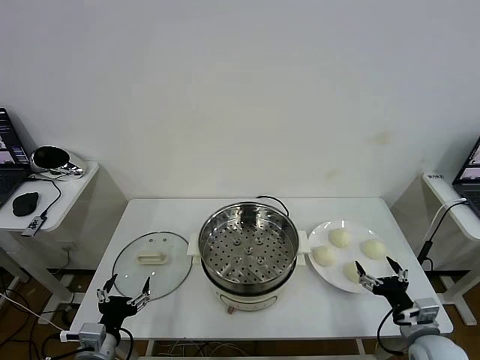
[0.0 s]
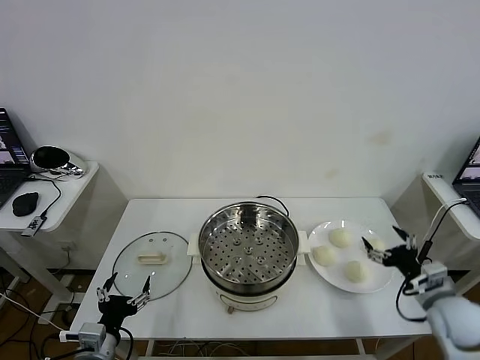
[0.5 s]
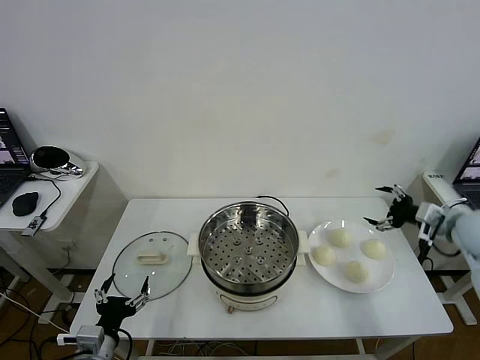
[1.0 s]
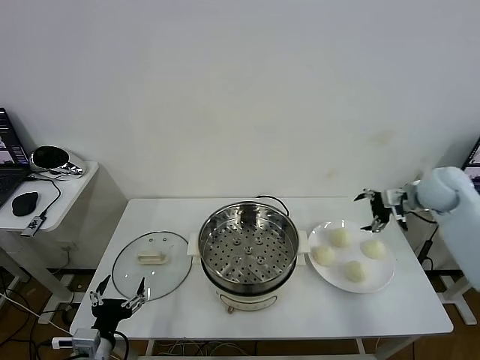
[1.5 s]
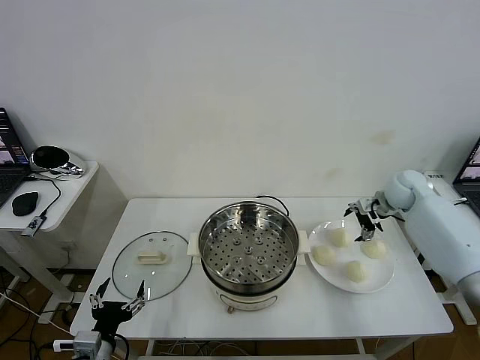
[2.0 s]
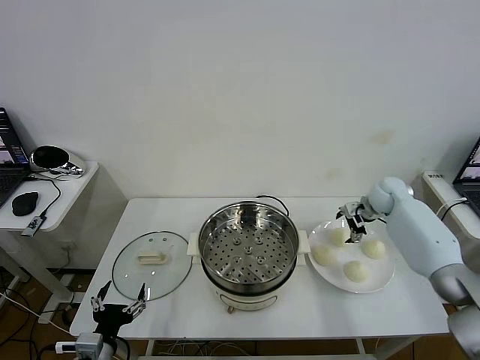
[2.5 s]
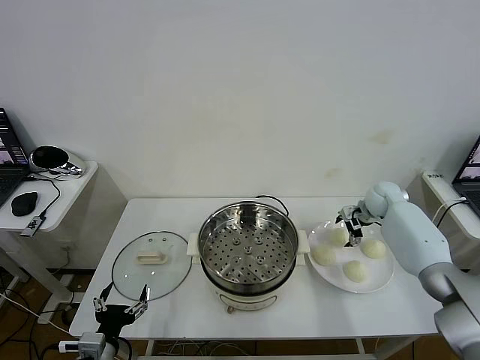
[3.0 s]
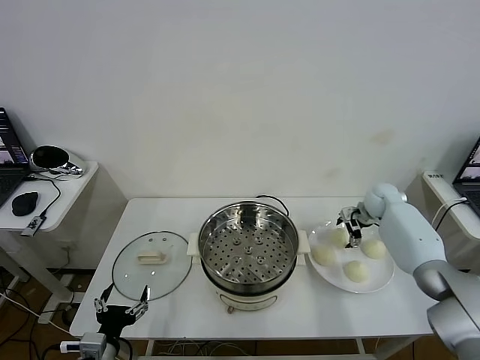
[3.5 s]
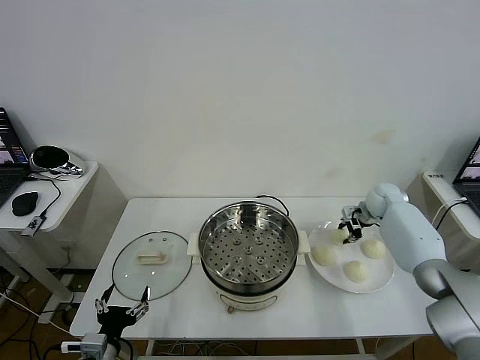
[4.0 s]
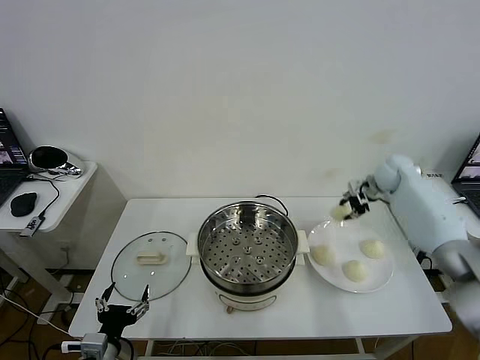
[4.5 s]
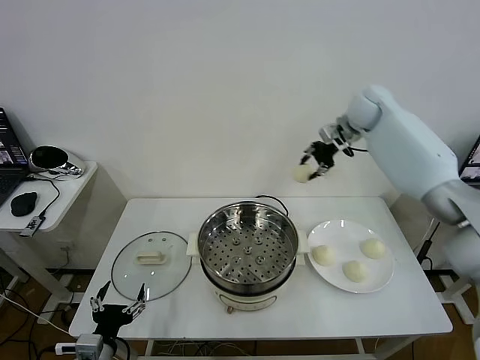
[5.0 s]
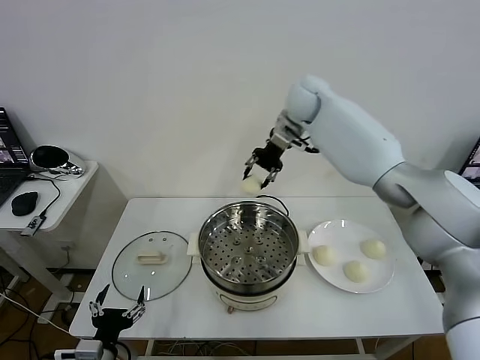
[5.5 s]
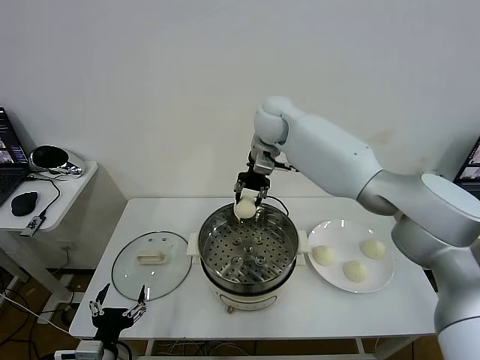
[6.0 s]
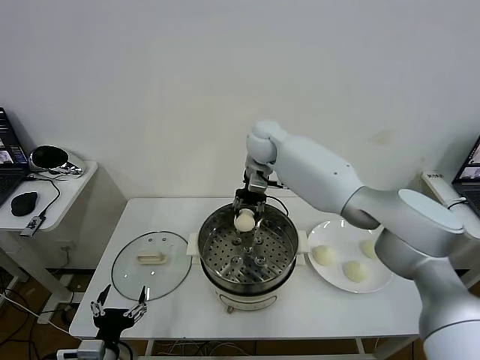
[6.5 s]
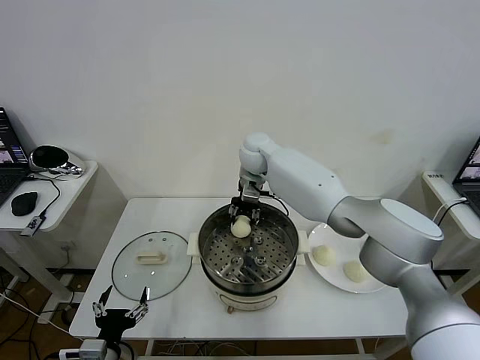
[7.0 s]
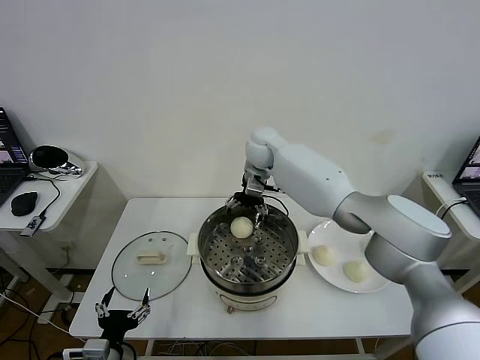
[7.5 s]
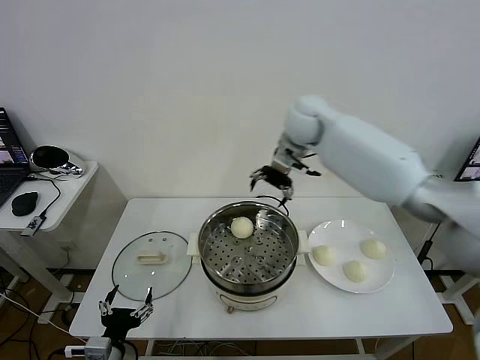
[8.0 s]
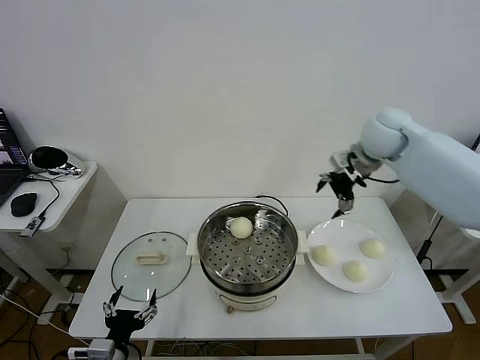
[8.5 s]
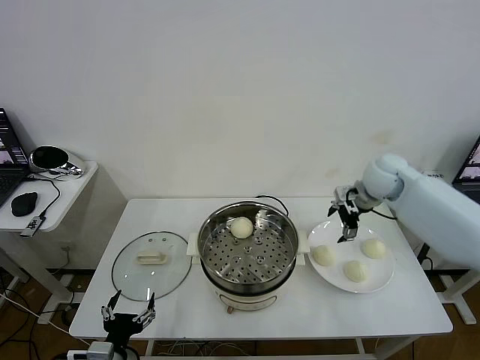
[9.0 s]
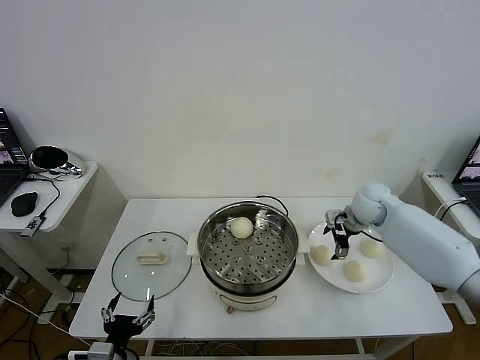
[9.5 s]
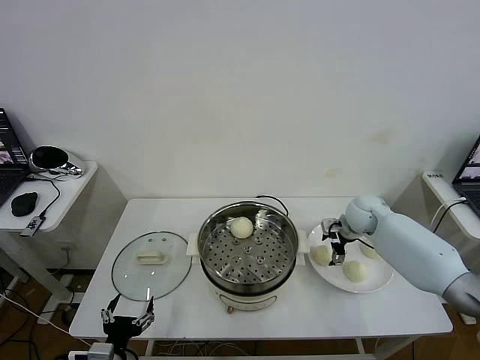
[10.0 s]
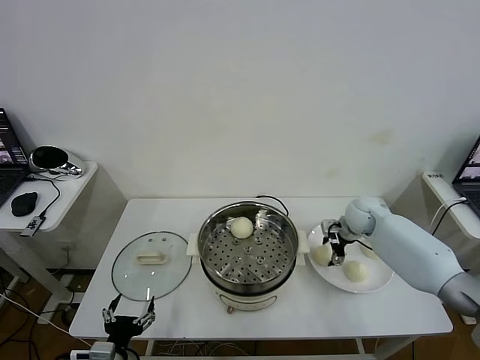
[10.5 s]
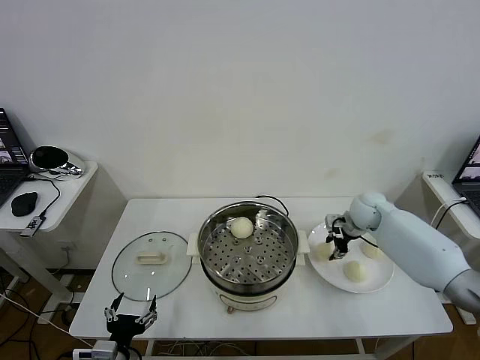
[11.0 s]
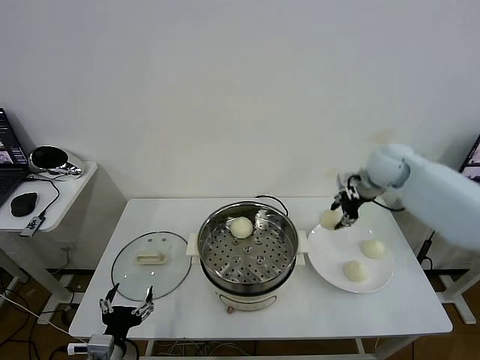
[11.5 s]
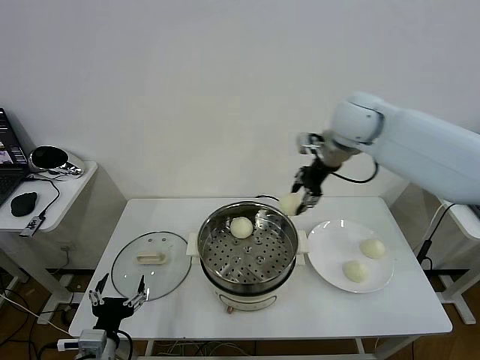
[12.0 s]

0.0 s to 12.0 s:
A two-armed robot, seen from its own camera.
Task of the whole recording: take steamed baozi put them in steamer then cover it.
Step, 0.0 to 3.5 s: Grasp the baozi in the plate with right gripper.
Step, 4.0 to 7.0 s: Place the baozi on the steamer with right gripper.
Step, 8.0 to 10.5 s: Grasp the baozi in the plate with right gripper.
2.0 to 4.0 s: The right gripper goes about 5 cm downward, and closes.
4.0 to 6.0 s: The right gripper goes roughly 40 cm to the left and upward.
6.0 to 8.0 s: The right gripper is displaced to the right by roughly 10 cm, and opens up.
8.0 to 10.0 s: The right gripper heads downward and to the right, covering some 30 cm.
10.0 to 12.0 s: The right gripper shifts some 30 cm upward and to the left, and closes.

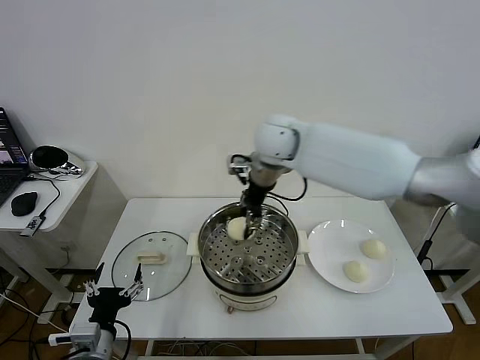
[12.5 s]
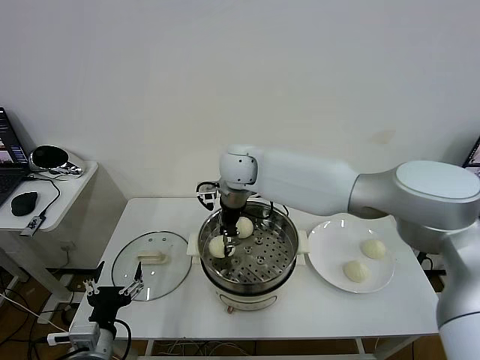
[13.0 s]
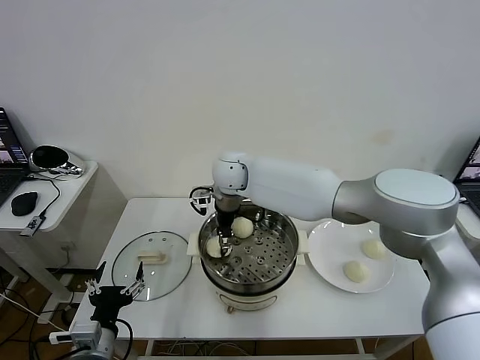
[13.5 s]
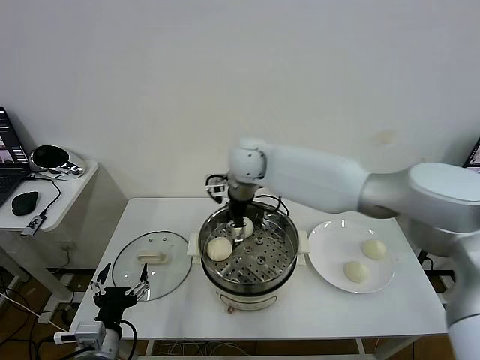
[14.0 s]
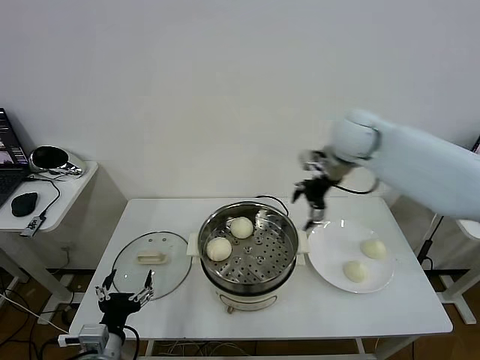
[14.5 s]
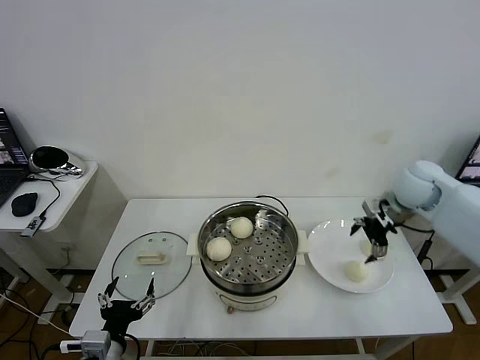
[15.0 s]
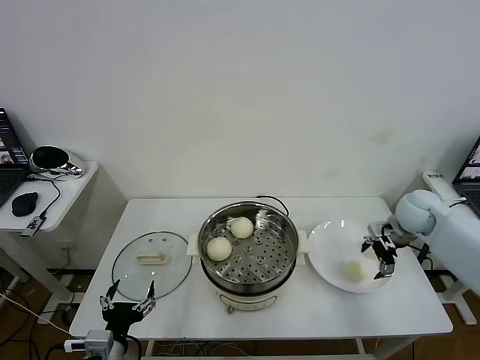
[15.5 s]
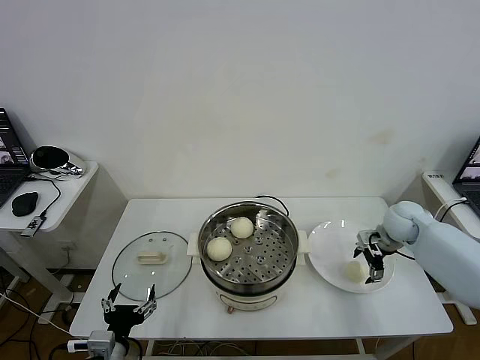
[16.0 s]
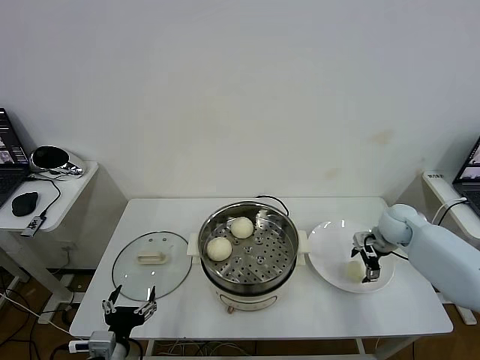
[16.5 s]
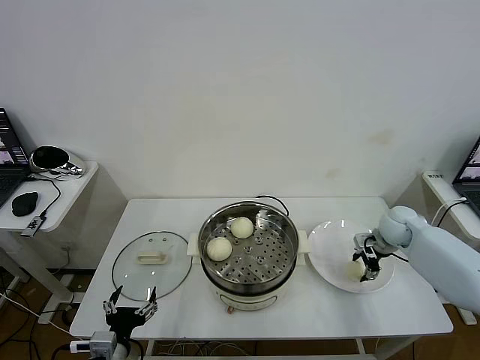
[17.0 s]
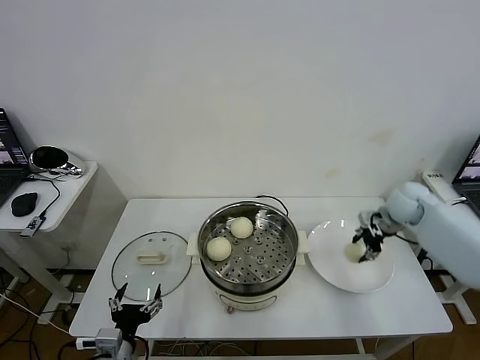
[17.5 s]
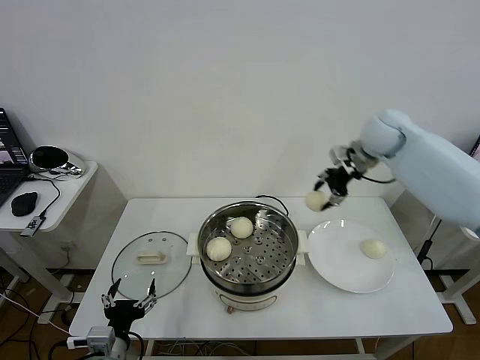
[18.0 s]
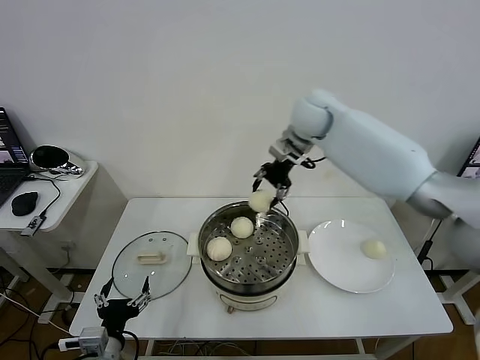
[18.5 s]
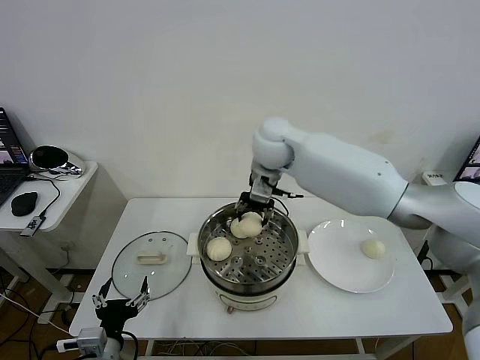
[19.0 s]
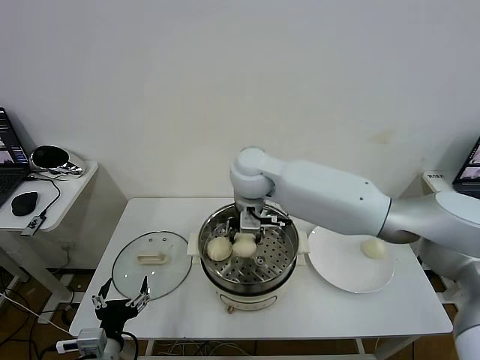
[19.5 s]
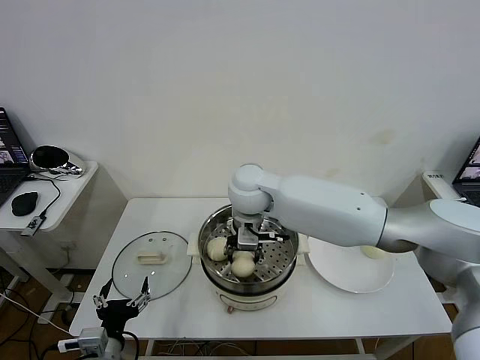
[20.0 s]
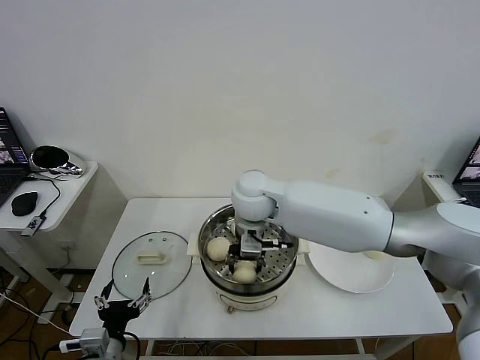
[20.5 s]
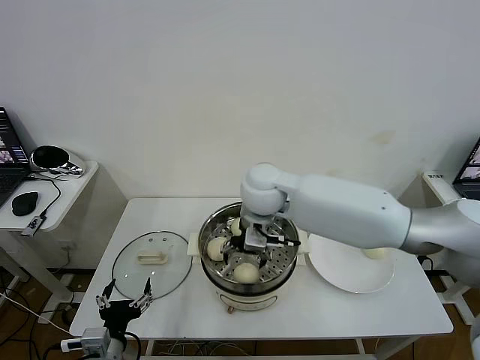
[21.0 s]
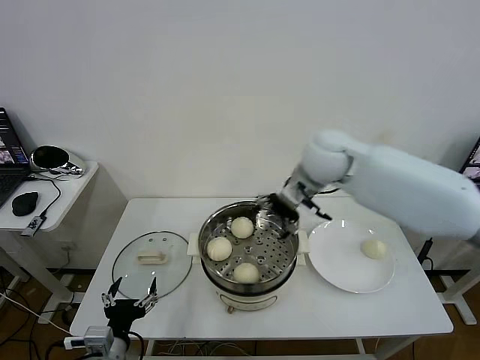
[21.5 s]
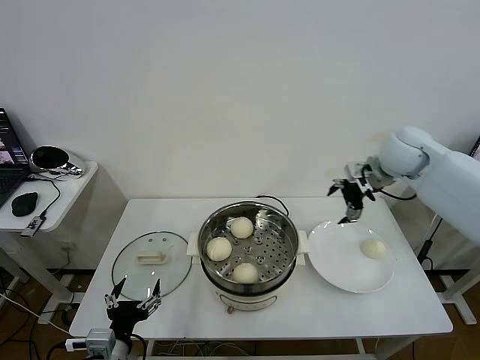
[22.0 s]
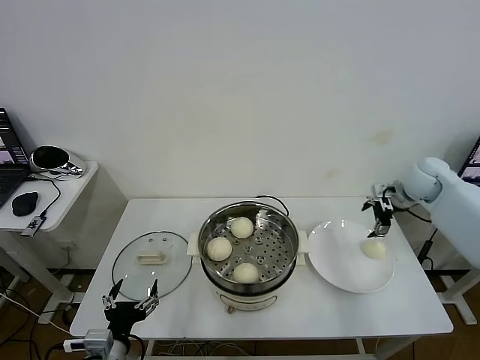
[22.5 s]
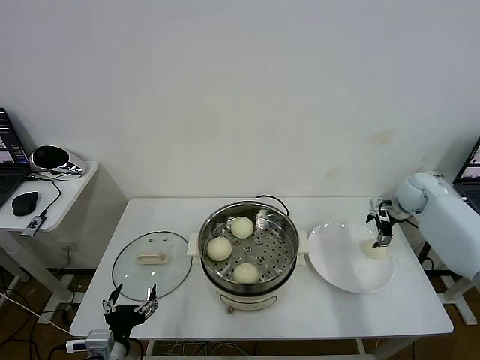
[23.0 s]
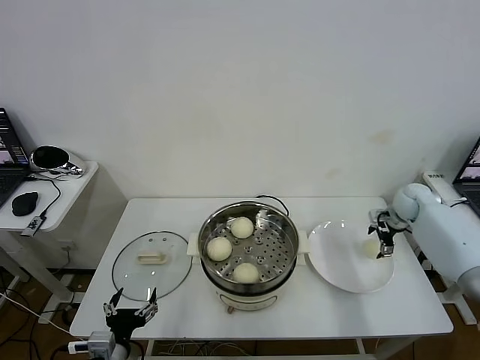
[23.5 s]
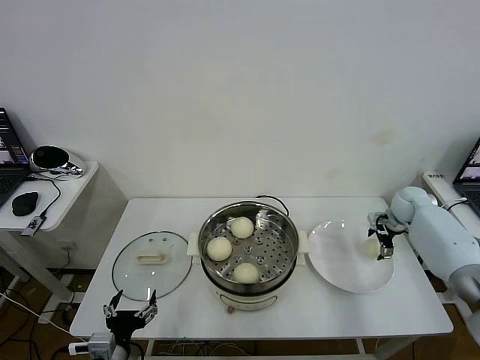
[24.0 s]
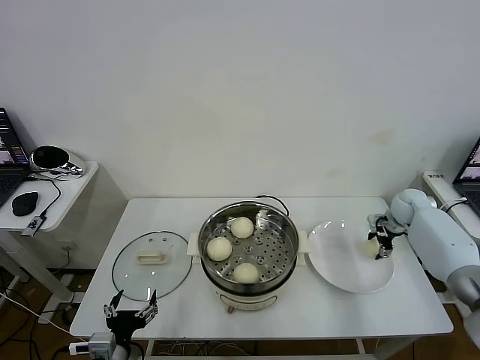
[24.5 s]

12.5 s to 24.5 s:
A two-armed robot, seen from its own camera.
Task of the whole recording: take steamed baozi put them in steamer then cover it.
Step, 14.0 to 17.0 s: Grasp the baozi in the plate with right gripper.
Step, 17.5 to 21.0 s: Place the baozi on the steamer with right gripper.
12.5 to 14.5 s: The right gripper is displaced to the right by some 20 cm, and opens up.
14.5 to 16.5 s: The right gripper goes roughly 25 cm downward and to the right.
16.5 to 18.5 s: The right gripper travels to the left and upward by roughly 35 cm, and closes its fingers.
18.5 to 20.5 s: The right gripper goes approximately 20 cm backward, to the left and downward.
20.5 to 22.5 s: The right gripper goes about 40 cm to the right, and opens its fingers.
22.5 to 24.5 s: The right gripper goes roughly 15 cm downward, and closes.

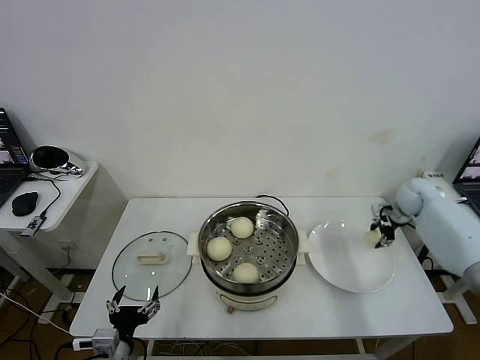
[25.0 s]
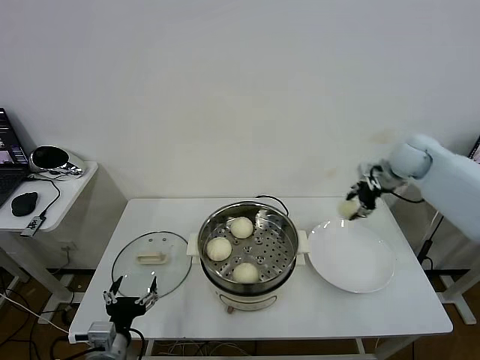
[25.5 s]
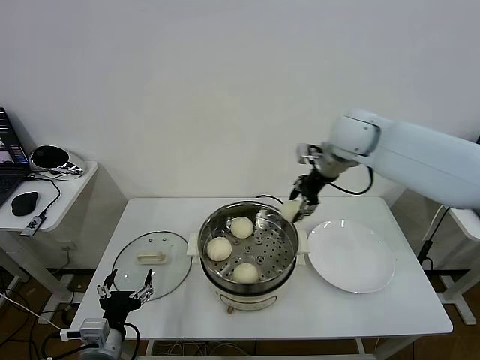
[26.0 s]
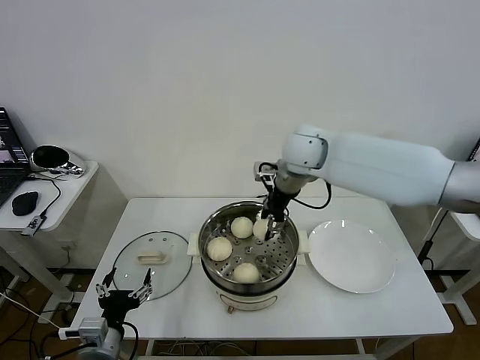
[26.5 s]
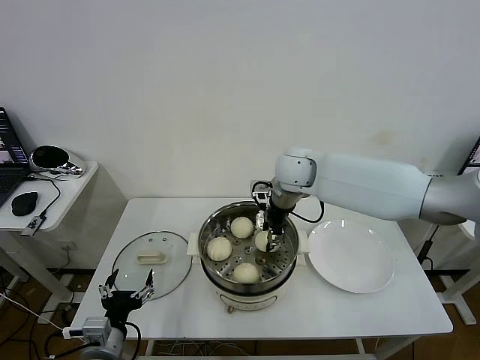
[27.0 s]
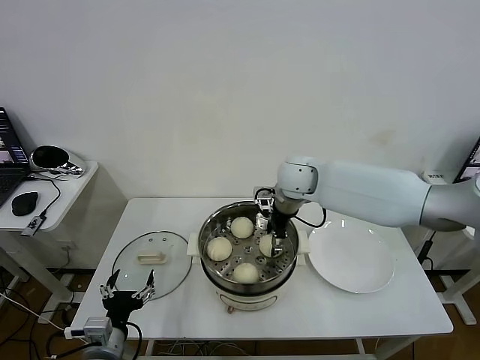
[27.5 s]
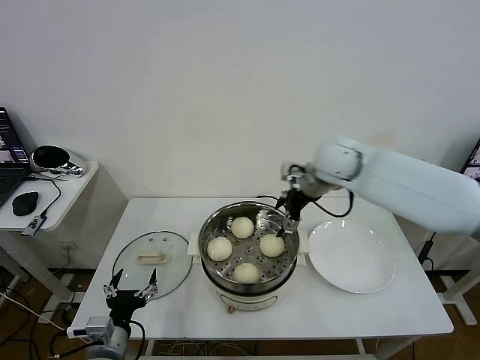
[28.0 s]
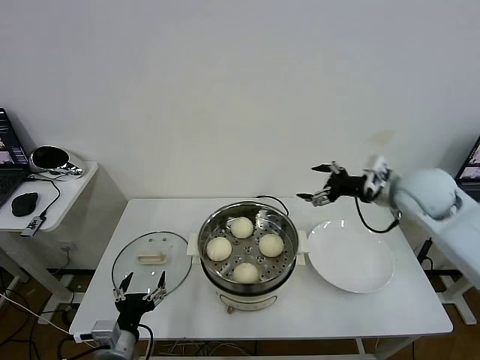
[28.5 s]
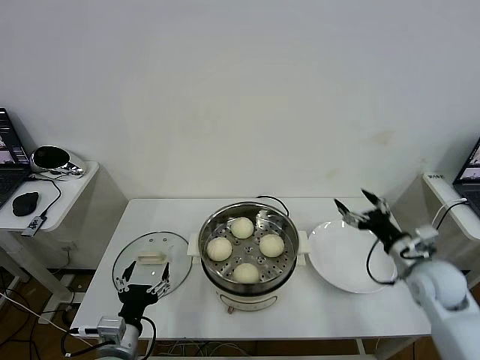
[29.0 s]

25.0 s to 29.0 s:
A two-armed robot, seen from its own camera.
Task of the whole recording: take steamed baozi put them in steamer then cover it.
Step, 25.0 to 27.5 s: Place the baozi on the steamer with right gripper.
25.0 to 27.0 s: The right gripper moves to the left, roughly 35 cm.
27.0 to 29.0 s: The right gripper is displaced to the right, backward and downward by roughly 35 cm, and opens up.
